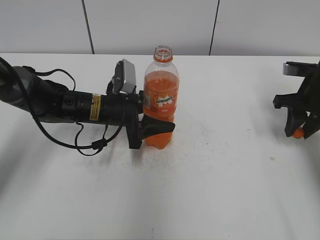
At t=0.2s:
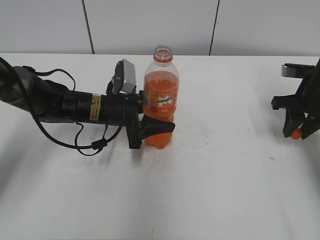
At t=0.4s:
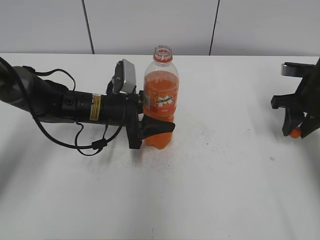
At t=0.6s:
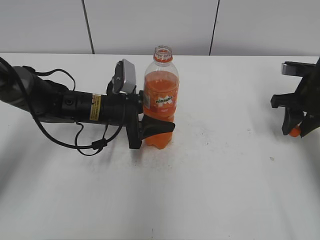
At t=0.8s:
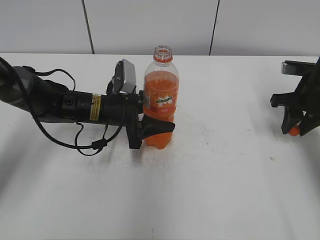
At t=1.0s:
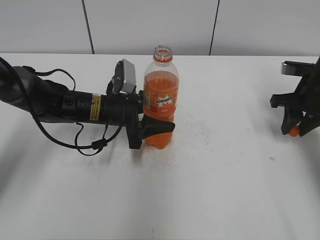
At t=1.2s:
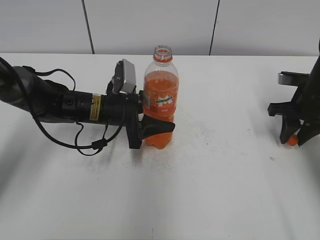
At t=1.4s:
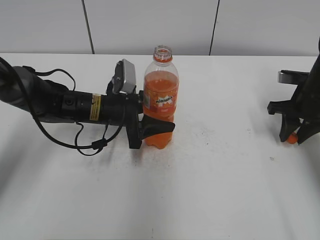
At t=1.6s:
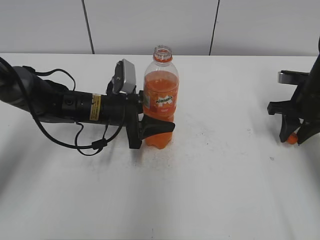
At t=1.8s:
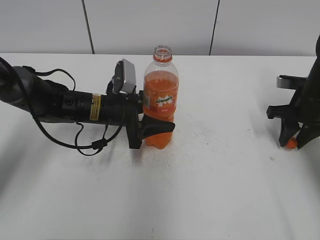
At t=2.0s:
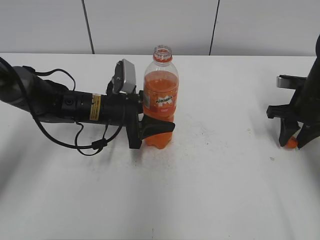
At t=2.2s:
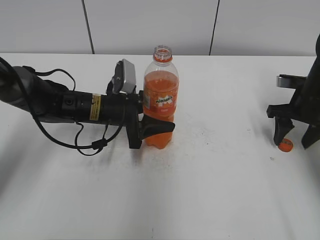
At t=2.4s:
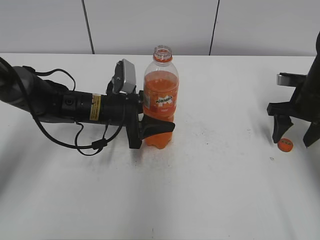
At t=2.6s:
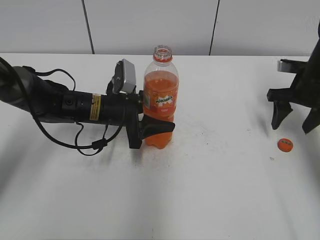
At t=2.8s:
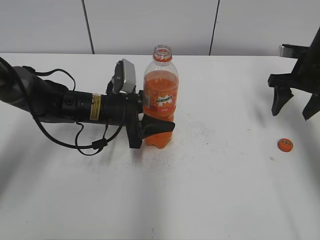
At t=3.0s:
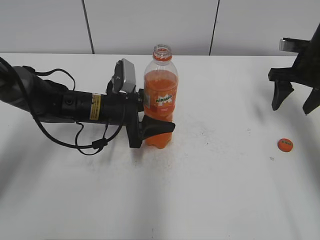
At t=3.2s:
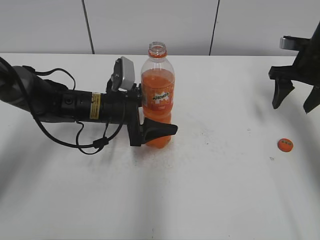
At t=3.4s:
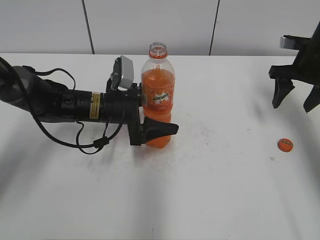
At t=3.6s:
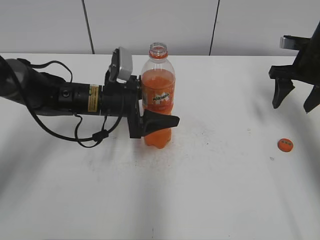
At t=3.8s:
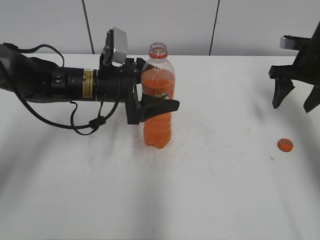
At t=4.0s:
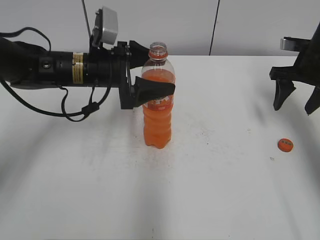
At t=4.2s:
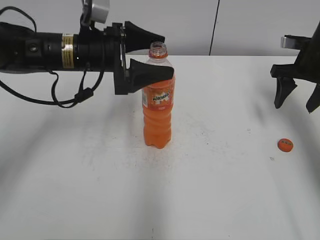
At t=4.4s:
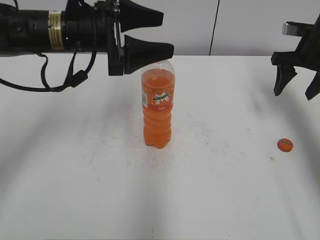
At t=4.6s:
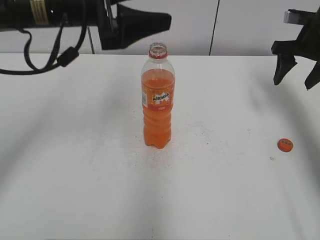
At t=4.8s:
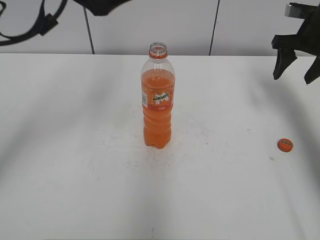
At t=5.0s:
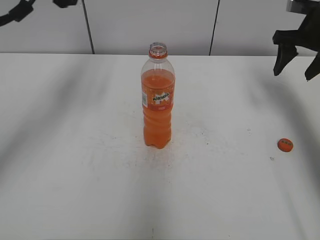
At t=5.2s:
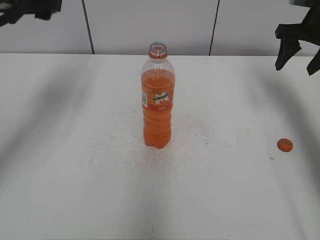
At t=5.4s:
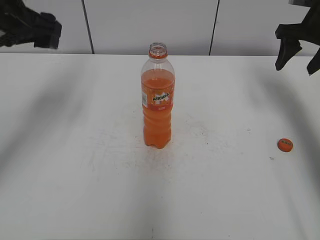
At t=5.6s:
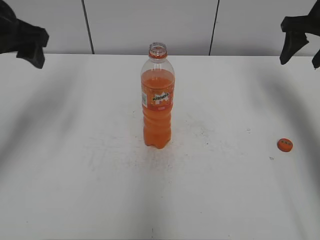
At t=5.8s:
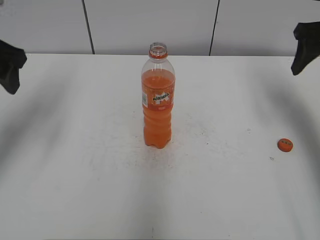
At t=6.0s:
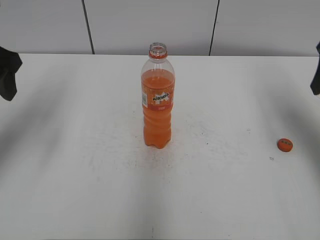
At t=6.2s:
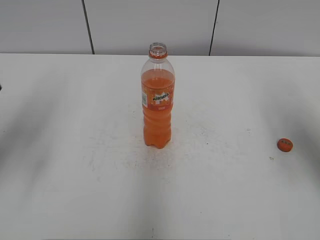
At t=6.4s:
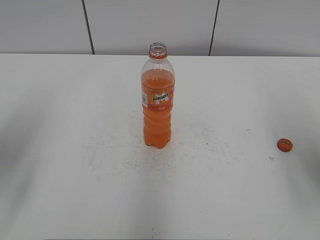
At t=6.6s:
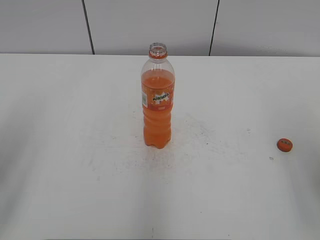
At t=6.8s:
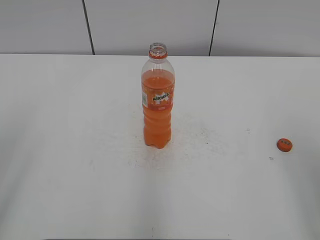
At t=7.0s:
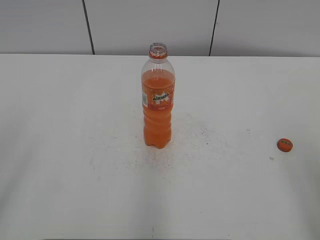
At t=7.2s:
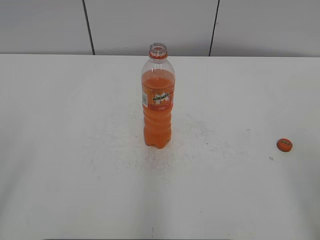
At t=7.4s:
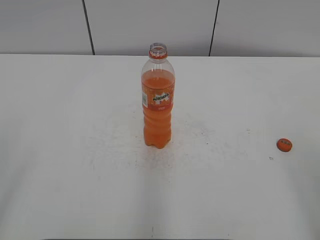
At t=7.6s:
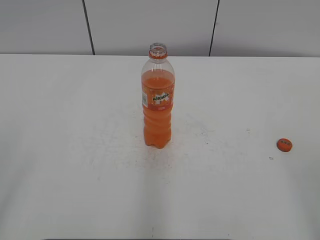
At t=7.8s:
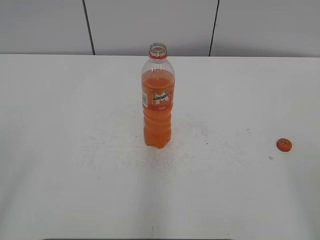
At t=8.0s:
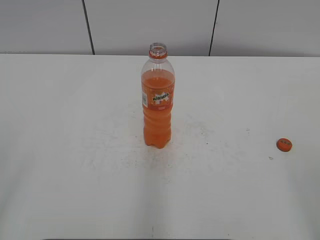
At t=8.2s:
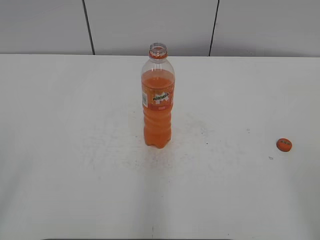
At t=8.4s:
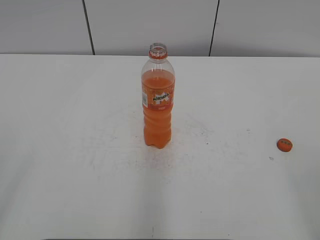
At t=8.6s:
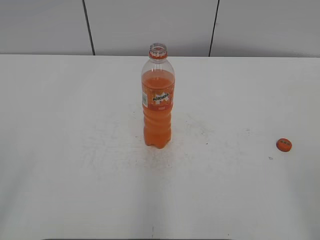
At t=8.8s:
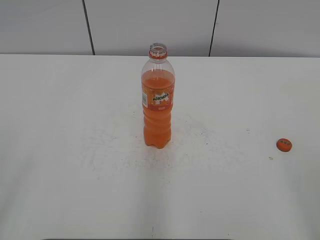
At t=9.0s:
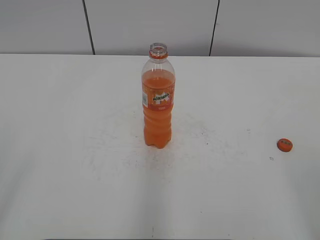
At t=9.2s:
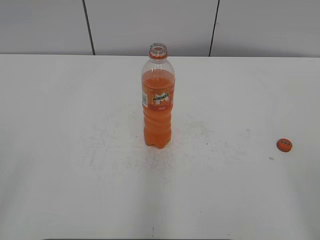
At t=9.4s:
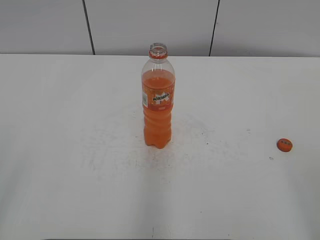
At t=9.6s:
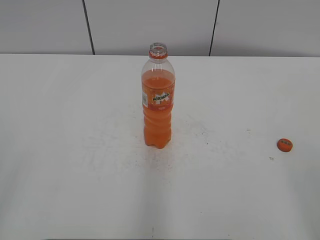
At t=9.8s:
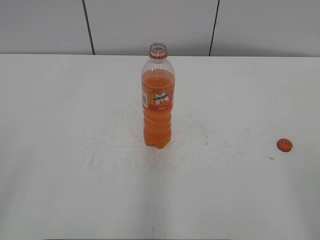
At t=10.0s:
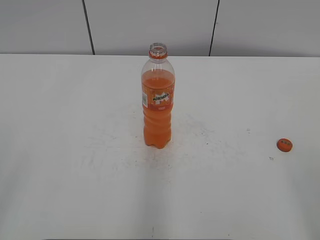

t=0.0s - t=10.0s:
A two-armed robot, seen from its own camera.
Step, t=0.0s - t=2.2s: Place the bottle cap on the right.
t=0.0s - t=1.4s: There are only small adjustments of the grippers.
t=1.4s - t=2.8s: The right gripper ends up about 5 cm from where it was, and opens.
t=2.8s - t=4.2s: The left gripper goes approximately 10 cm upward, and opens its fingers.
t=4.2s - t=5.8s: The right gripper goes approximately 10 cm upward. The left gripper heads to the left and upward, covering some 15 cm.
t=5.8s - t=7.2s: Both grippers move backward, approximately 30 cm.
